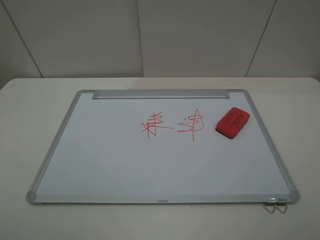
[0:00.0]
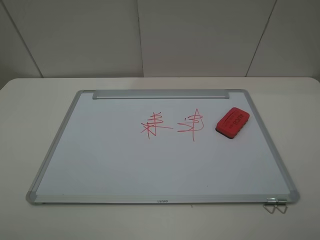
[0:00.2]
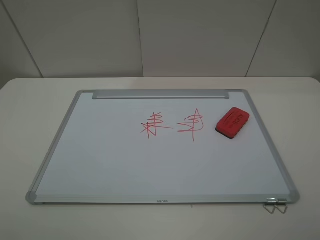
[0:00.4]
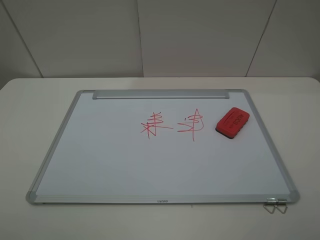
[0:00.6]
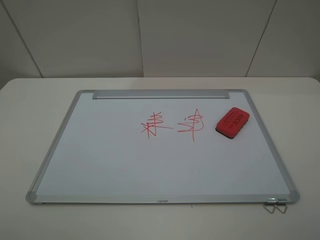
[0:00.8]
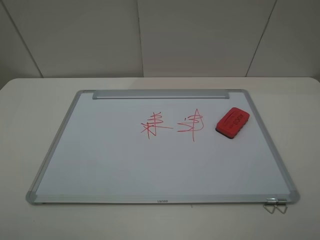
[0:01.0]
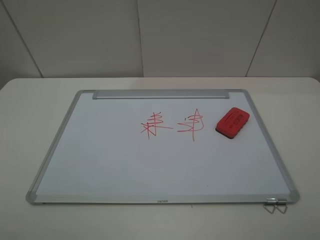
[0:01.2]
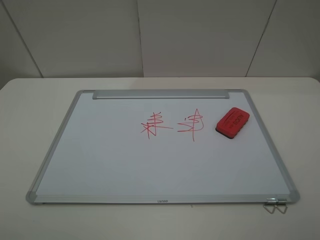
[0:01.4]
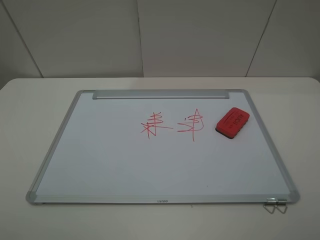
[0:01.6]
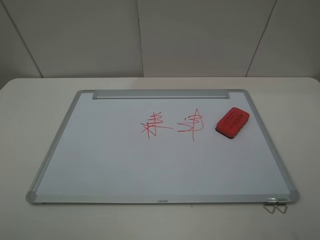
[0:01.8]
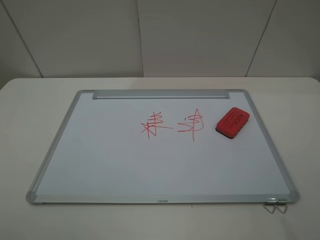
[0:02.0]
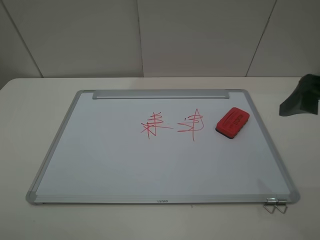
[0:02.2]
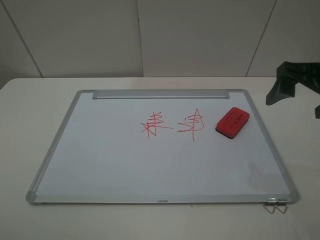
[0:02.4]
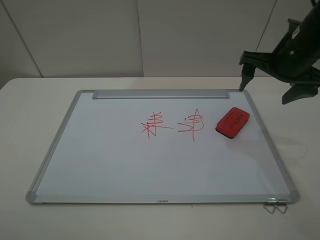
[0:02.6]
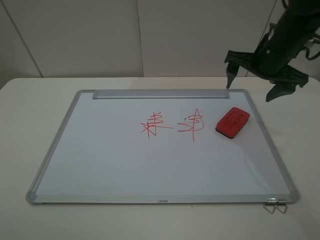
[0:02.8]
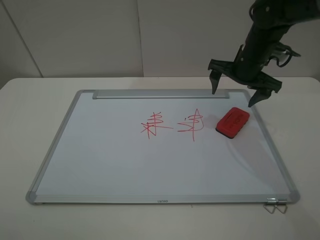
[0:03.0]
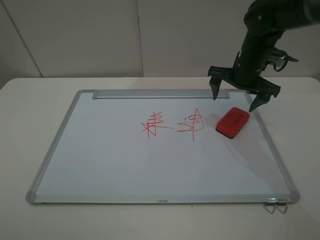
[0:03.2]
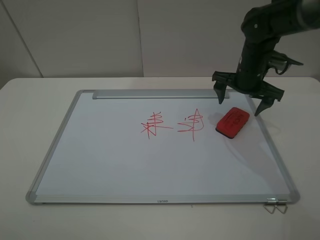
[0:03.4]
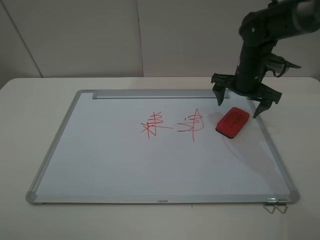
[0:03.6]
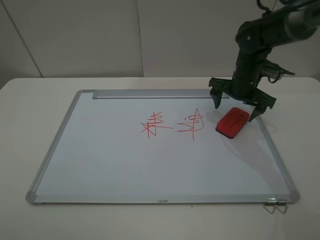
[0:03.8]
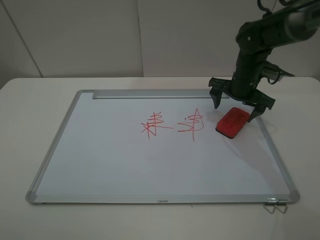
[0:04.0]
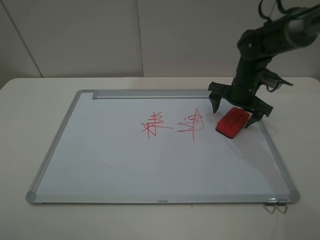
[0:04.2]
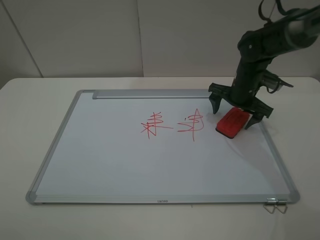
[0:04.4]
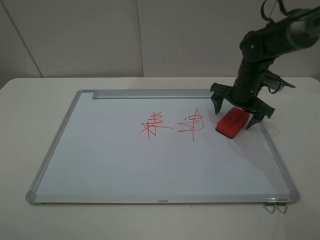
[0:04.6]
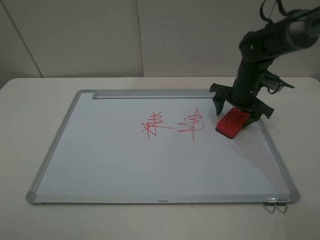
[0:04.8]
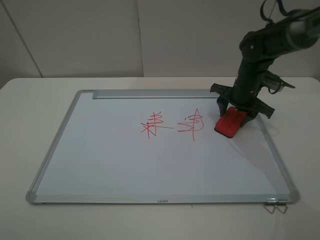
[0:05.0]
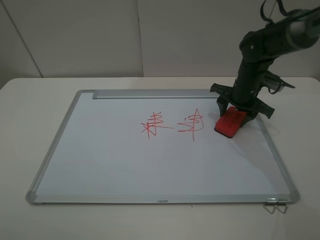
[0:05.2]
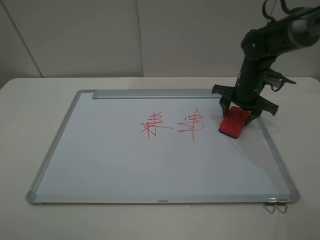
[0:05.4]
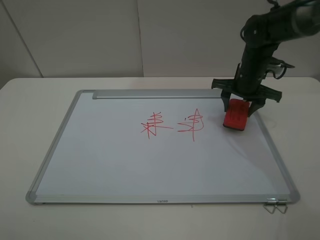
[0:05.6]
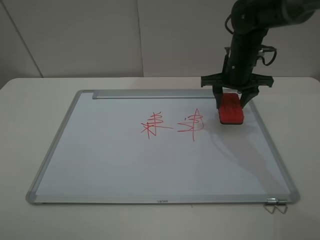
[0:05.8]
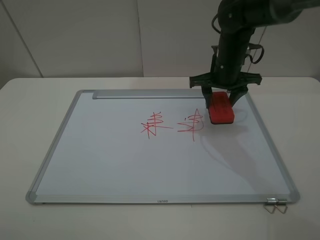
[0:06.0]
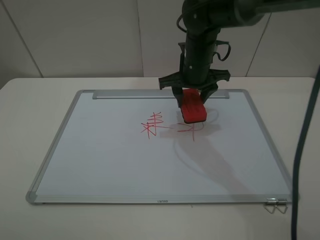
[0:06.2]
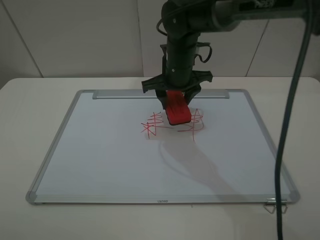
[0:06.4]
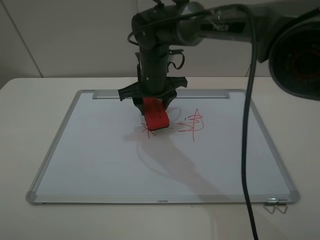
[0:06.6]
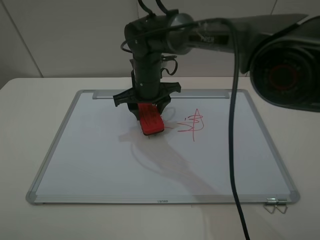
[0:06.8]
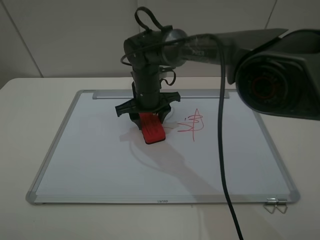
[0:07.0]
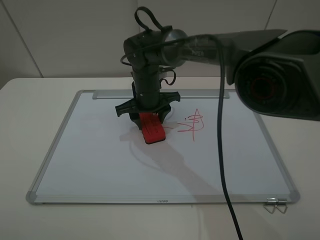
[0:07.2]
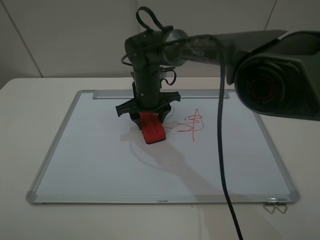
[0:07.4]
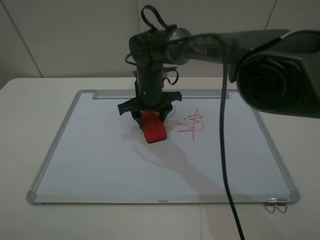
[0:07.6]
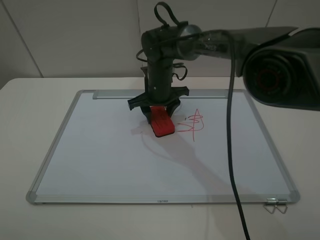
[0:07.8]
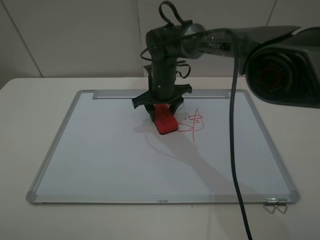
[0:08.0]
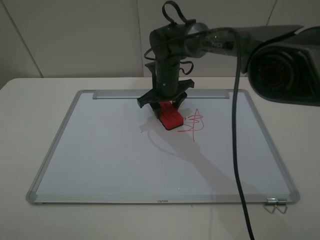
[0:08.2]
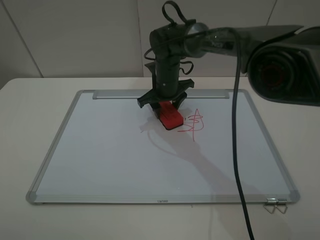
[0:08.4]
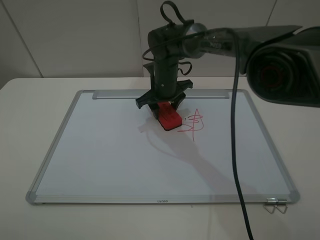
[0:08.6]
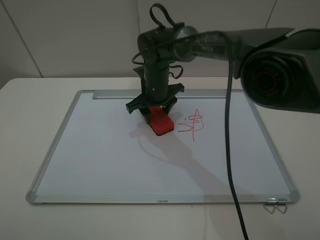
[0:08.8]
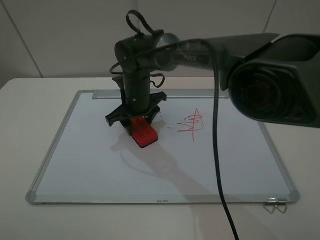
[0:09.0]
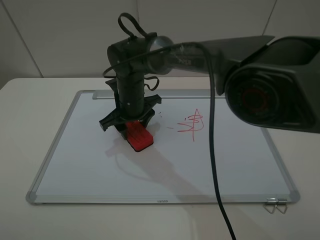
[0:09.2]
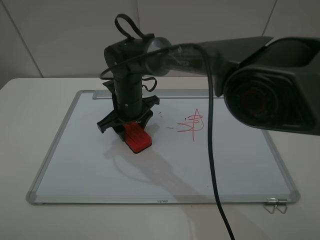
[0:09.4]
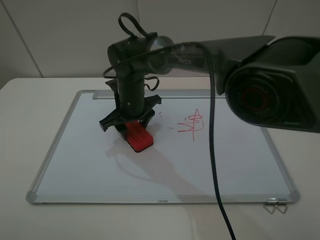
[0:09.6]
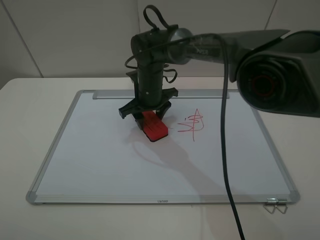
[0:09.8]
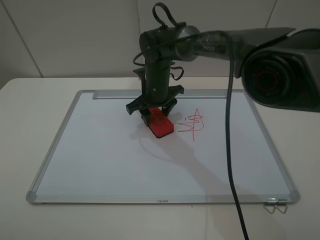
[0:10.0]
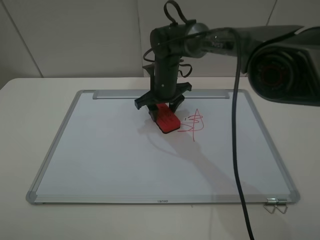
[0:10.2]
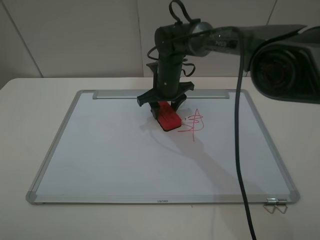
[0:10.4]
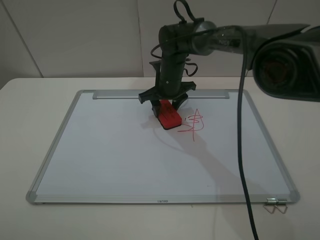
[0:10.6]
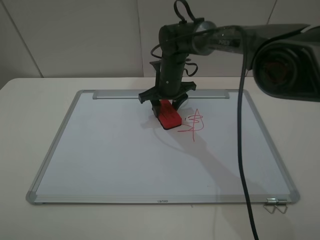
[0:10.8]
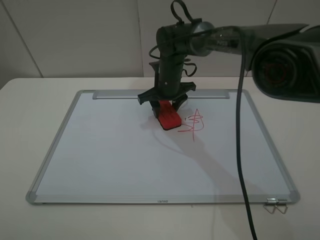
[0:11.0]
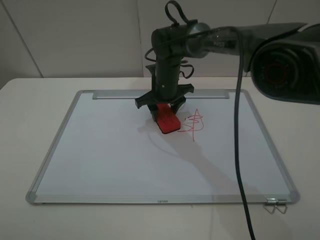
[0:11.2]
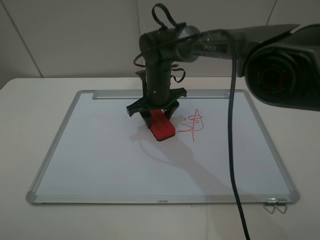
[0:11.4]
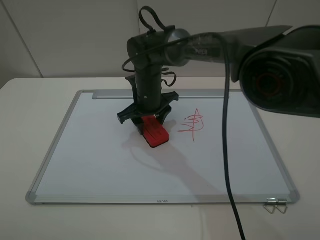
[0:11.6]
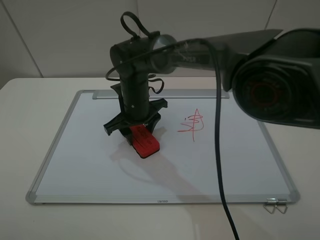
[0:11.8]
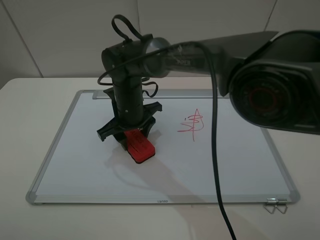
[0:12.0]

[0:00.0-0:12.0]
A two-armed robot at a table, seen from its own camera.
Step, 0:00.0 to 0:04.8: Grasp the eraser with the right gripper.
0:00.0 to 0:01.6: Both grippers stay put.
0:01.6 to 0:03.0: The right gripper goes approximately 40 cm forward.
0:03.0 to 0:04.4: The right gripper shifts some 5 cm downward.
0:04.4 to 0:06.0: The right gripper travels to the left and upward by about 10 cm, and closes.
0:06.0 to 0:07.6: The right gripper is displaced to the left and downward by about 15 cm.
0:07.6 to 0:09.0: There are only small adjustments of the grippers.
0:09.0 to 0:10.4: The right gripper heads to the right and forward, covering approximately 10 cm.
0:10.4 to 0:12.0: The right gripper shifts some 15 cm backward and to the left.

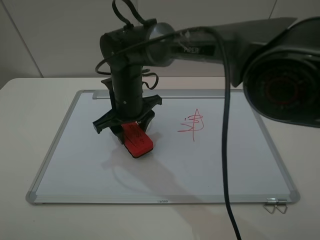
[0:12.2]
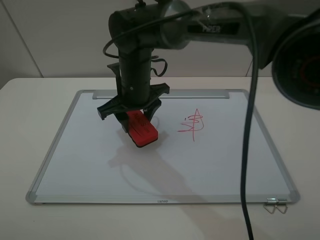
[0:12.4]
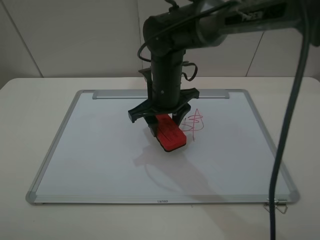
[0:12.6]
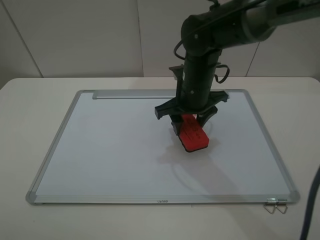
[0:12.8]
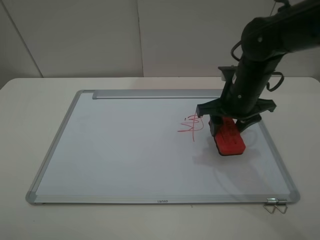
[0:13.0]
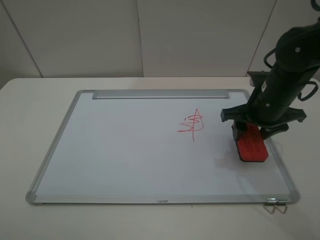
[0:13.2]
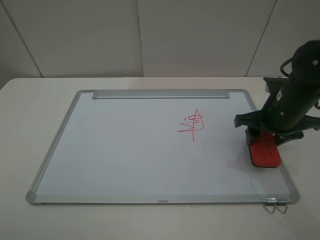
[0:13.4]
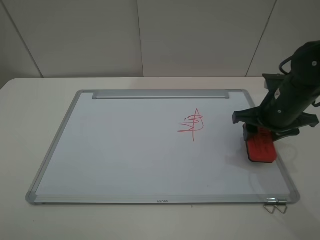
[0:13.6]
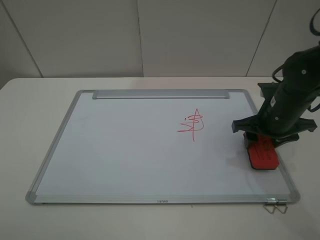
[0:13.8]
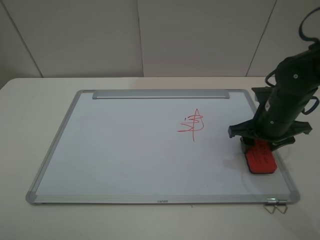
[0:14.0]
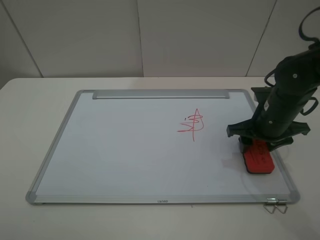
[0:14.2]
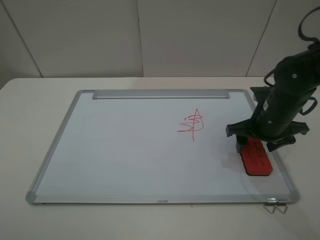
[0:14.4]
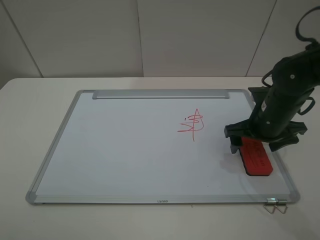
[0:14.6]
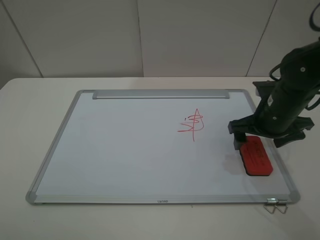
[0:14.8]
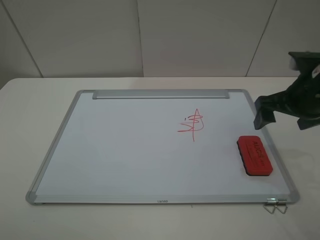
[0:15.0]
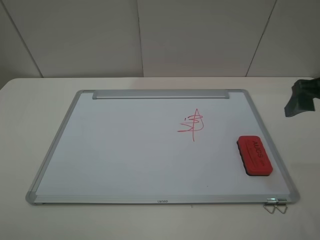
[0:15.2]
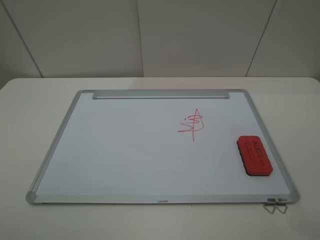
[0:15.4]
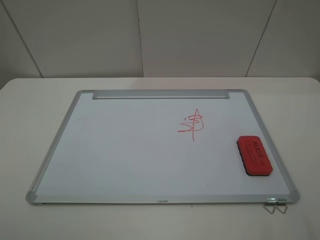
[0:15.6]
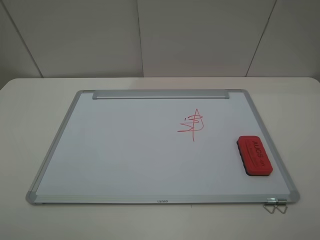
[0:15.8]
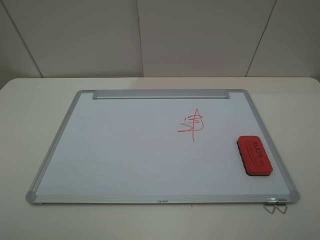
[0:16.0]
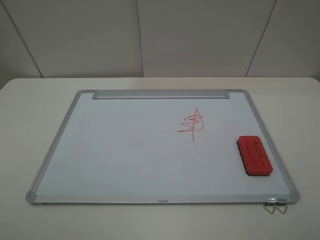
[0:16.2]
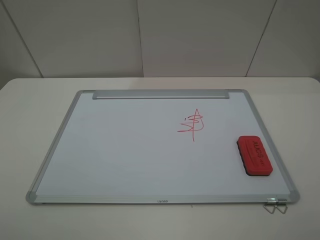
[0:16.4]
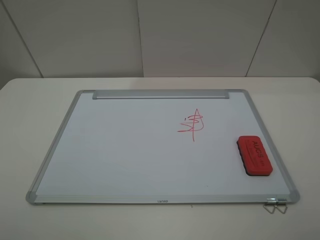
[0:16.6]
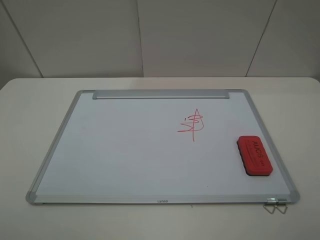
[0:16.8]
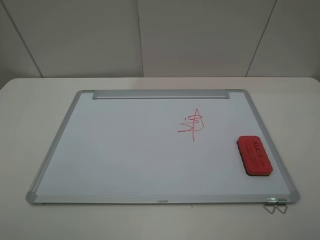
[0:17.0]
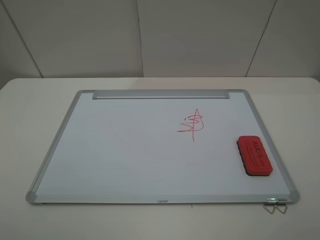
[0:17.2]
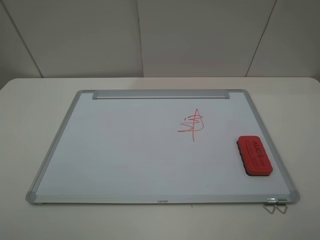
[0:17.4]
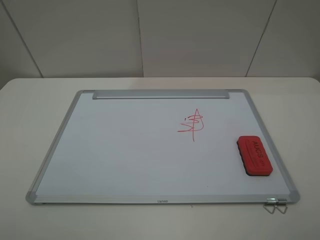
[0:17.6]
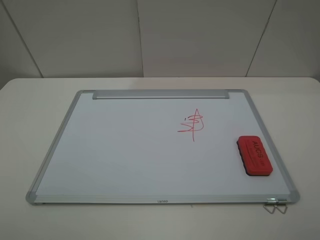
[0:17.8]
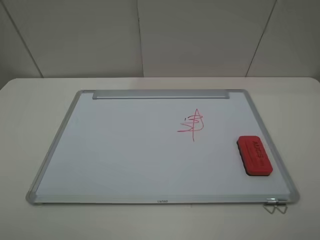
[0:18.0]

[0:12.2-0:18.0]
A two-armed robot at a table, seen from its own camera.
Step, 0:12.4 to 0:14.4: Place the eraser with the right gripper.
0:12.2 to 0:13.6: The right gripper travels to the right by approximately 30 cm.
0:13.6 to 0:15.0: The right gripper goes roughly 10 cm upward, and opens up.
0:15.0 to 0:16.6: The right gripper moves backward, approximately 25 cm.
0:16.6 to 0:18.0: Both grippers stay put.
